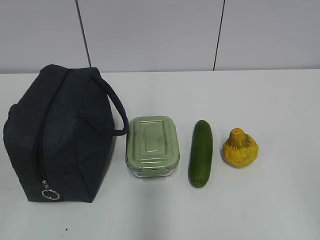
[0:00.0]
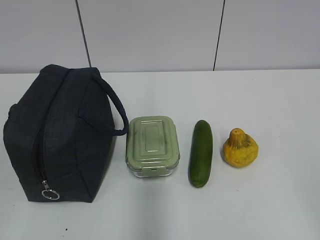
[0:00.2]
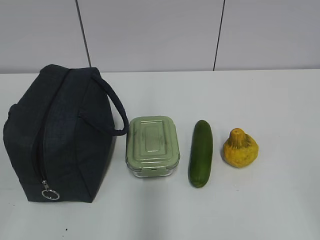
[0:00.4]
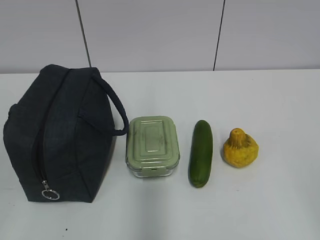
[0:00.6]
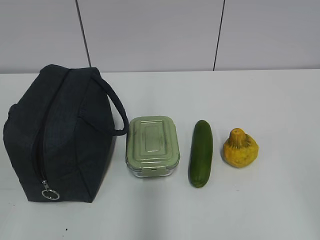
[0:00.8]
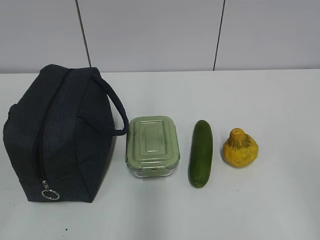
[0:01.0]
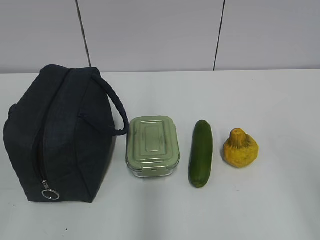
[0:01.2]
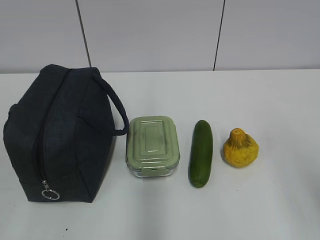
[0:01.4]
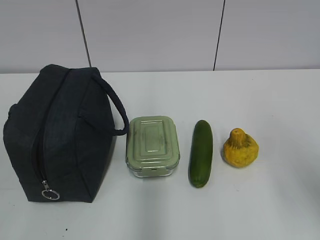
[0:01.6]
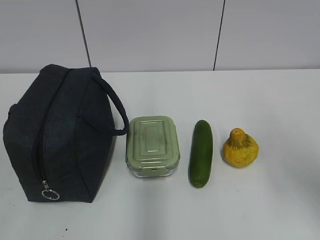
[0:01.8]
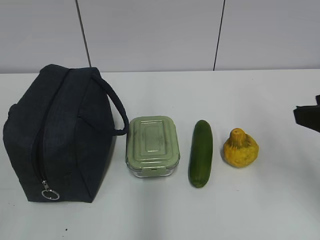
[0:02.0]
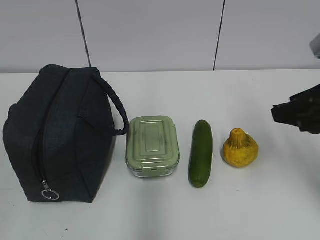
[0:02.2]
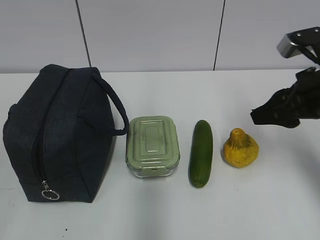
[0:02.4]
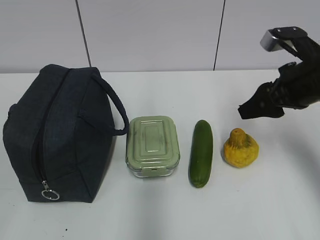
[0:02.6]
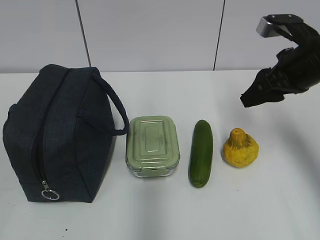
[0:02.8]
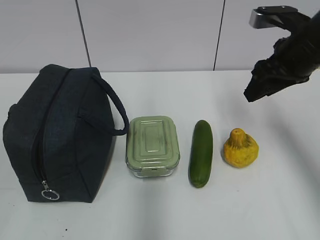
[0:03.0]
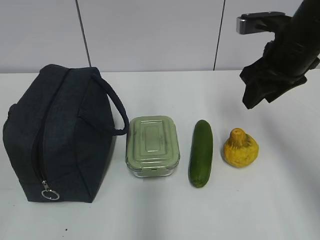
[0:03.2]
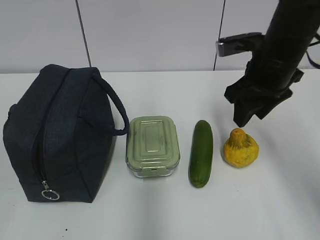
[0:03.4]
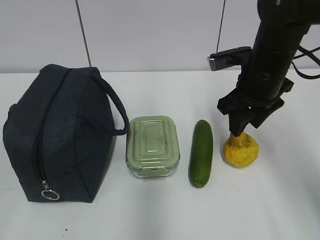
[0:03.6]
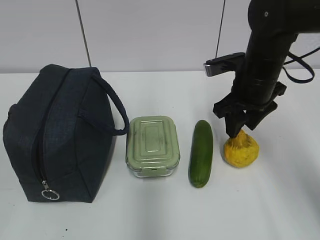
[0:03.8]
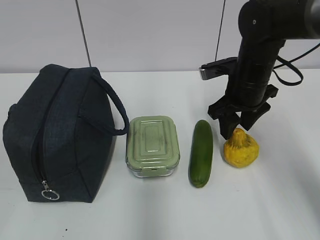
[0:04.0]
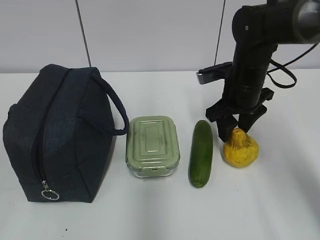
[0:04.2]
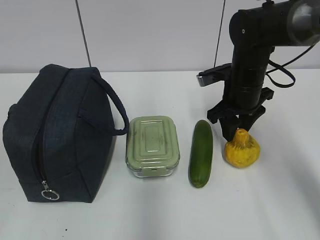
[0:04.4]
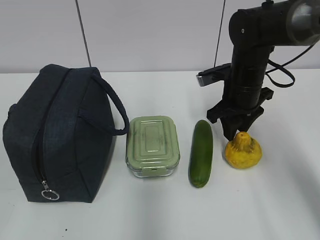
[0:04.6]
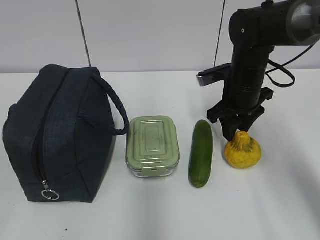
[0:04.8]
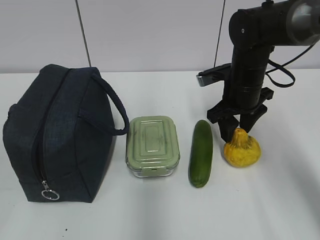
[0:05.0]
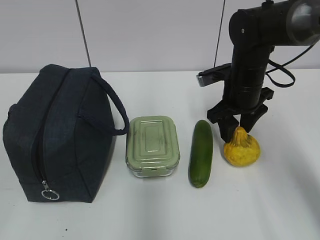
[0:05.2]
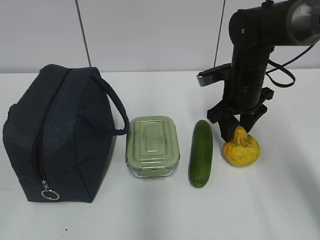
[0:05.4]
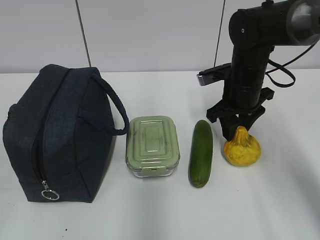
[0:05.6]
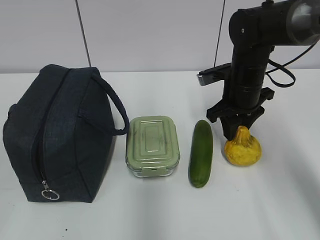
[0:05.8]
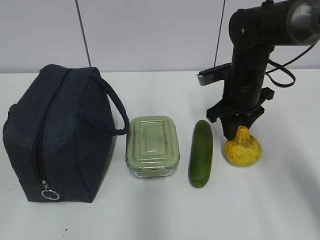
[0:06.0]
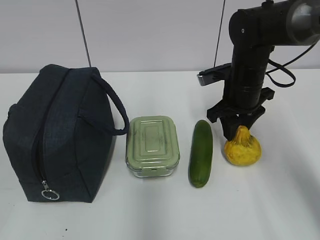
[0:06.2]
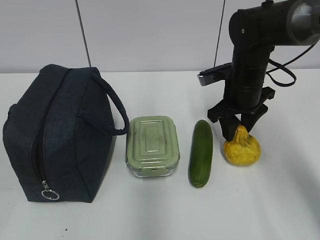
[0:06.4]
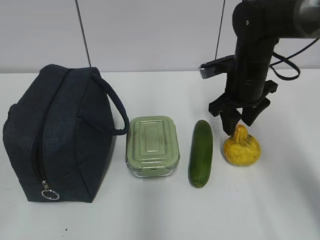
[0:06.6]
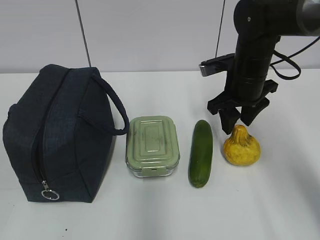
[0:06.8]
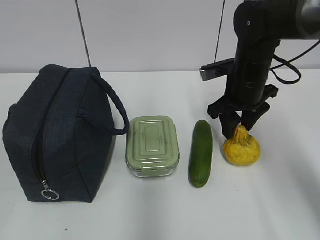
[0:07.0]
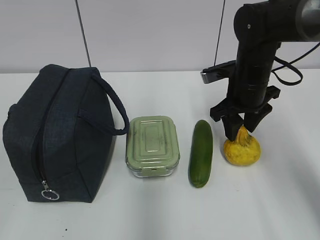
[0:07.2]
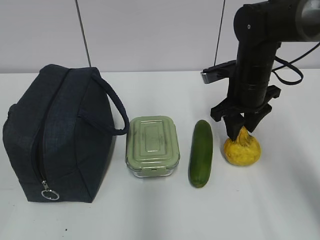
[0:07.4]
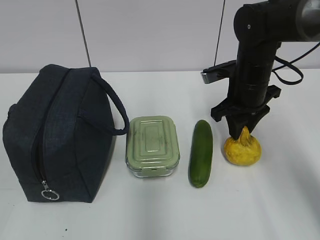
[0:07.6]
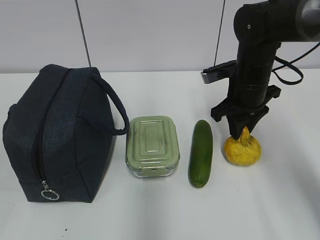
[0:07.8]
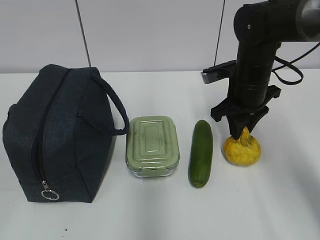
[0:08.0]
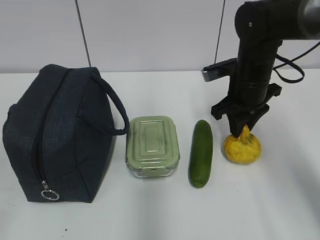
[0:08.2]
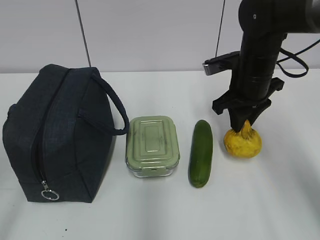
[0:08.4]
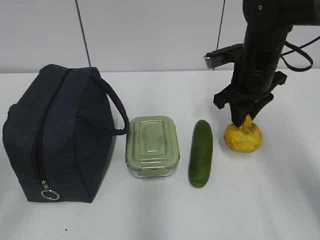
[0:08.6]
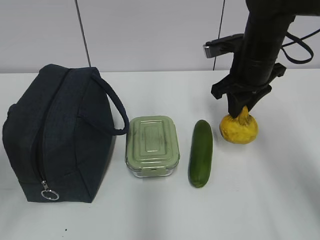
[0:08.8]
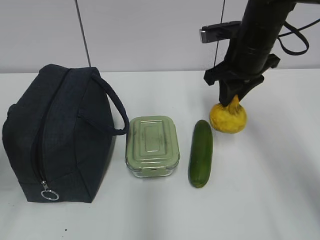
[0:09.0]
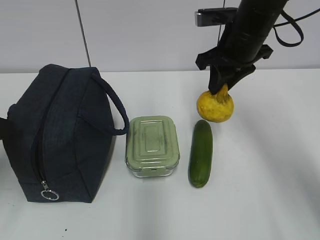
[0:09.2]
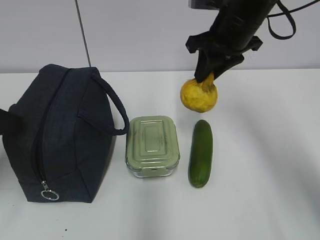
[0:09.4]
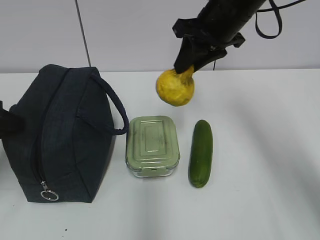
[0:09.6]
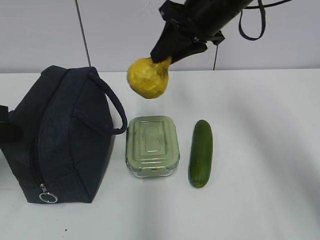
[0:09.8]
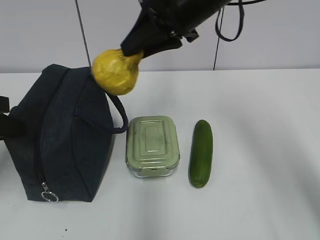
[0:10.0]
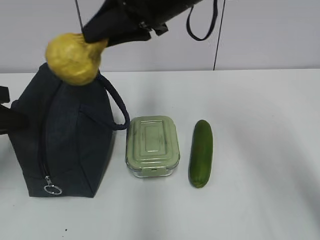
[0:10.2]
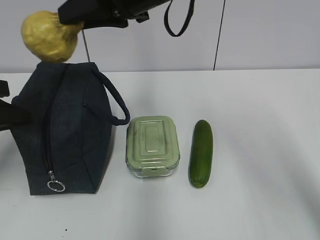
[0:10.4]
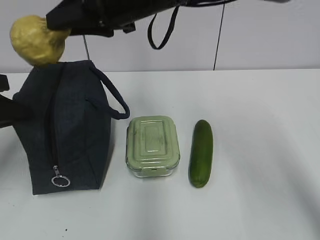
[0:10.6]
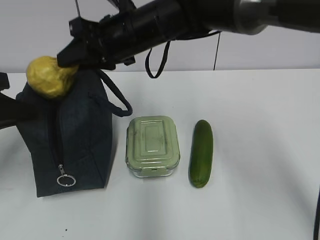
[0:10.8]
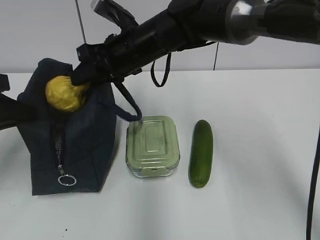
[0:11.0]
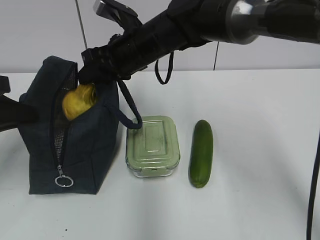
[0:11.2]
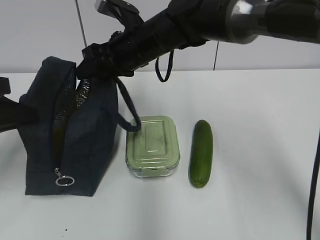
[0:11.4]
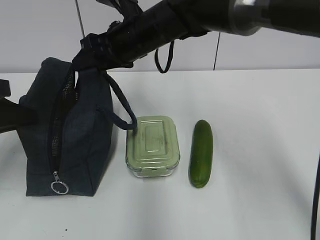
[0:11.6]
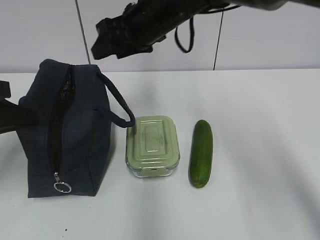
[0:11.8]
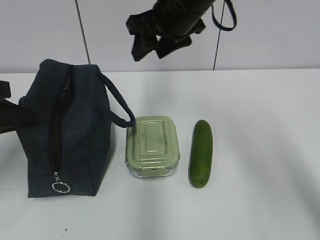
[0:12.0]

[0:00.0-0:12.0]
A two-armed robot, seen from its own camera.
Step, 0.0 to 7.8 s: Grab the pear with your right hand.
Step, 8.0 to 10.6 s: Grab the lunch bag with your left hand.
Step, 10.8 to 11.4 s: Place it into the bag with your right hand.
1.6 to 3.0 s: The right gripper is displaced forward by approximately 25 cm.
3.0 to 4.4 s: The right gripper shifts about 15 cm downward, to the left and forward.
4.4 to 6.0 s: Both grippers stay put.
6.0 to 7.6 s: The grippers make only small movements.
7.6 to 9.0 s: The left gripper travels forward by roughly 15 cm. The right gripper goes approximately 5 cm upward.
9.0 to 10.4 s: The left gripper shifts some 5 cm forward, and closes its fingers. Meanwhile the right gripper moves to the left and upward, roughly 20 cm.
10.4 to 12.0 s: The right gripper heads to the right, covering roughly 5 cm, moves roughly 10 cm downward and comes back, and opens.

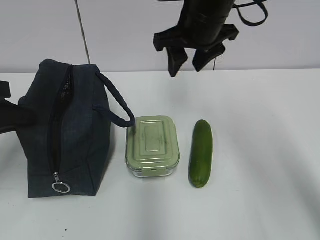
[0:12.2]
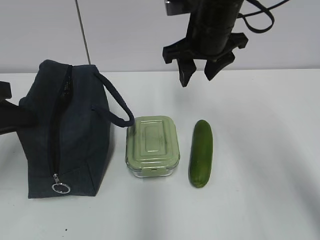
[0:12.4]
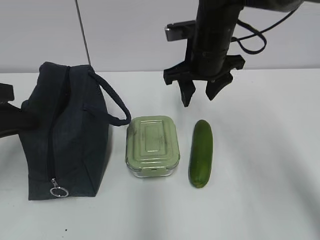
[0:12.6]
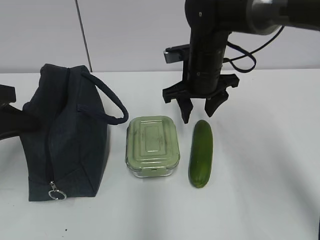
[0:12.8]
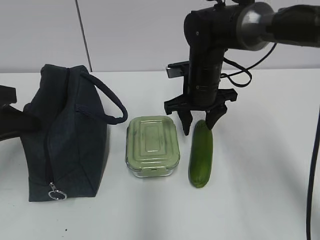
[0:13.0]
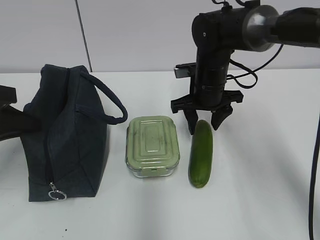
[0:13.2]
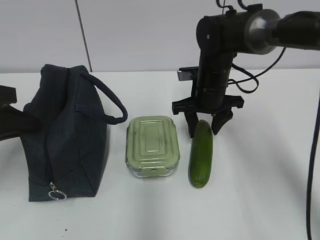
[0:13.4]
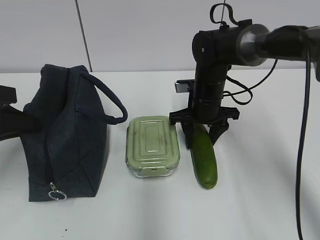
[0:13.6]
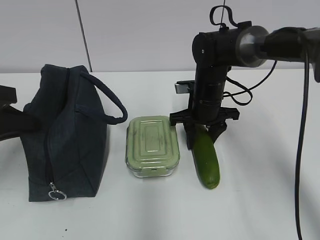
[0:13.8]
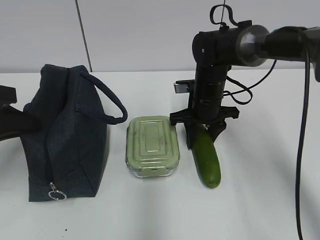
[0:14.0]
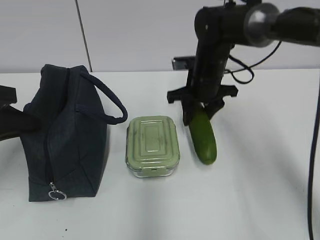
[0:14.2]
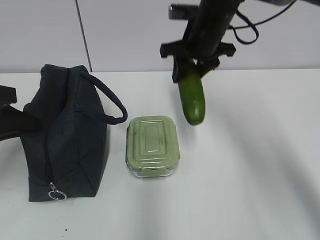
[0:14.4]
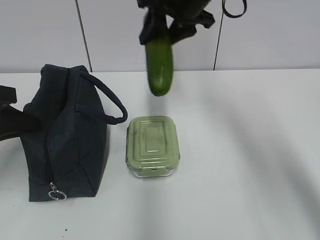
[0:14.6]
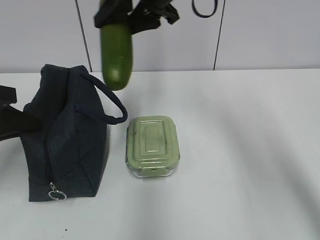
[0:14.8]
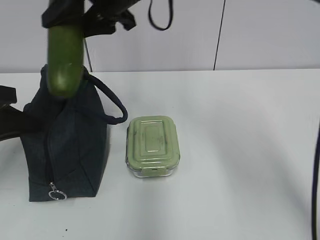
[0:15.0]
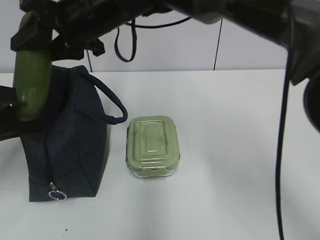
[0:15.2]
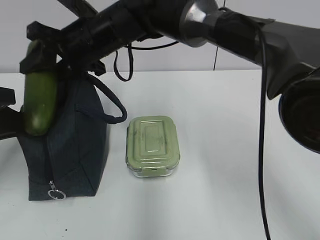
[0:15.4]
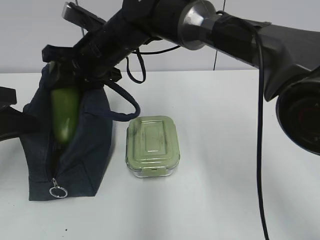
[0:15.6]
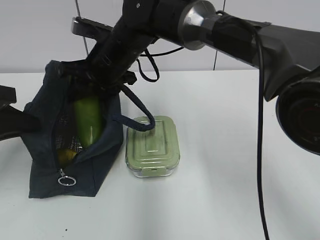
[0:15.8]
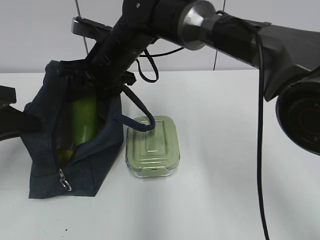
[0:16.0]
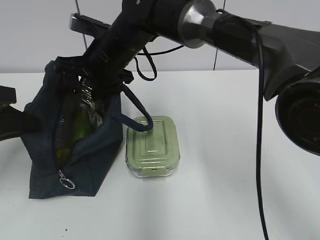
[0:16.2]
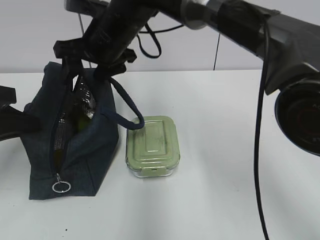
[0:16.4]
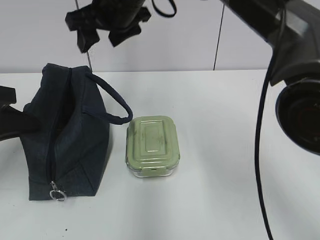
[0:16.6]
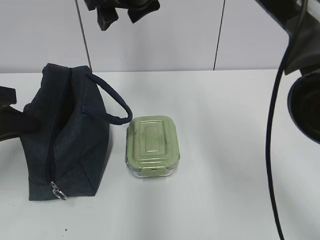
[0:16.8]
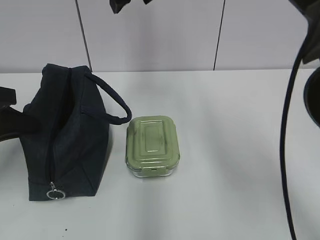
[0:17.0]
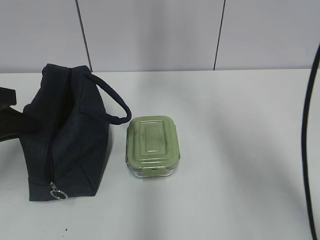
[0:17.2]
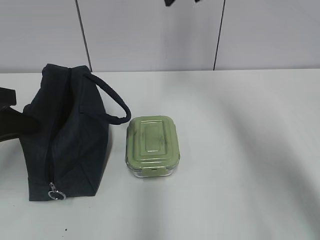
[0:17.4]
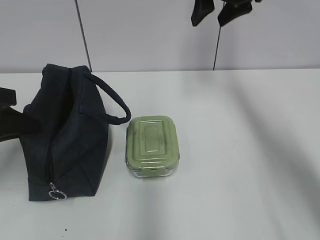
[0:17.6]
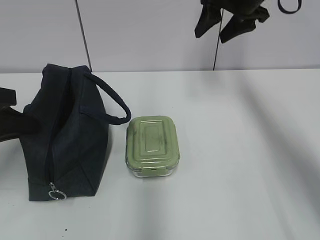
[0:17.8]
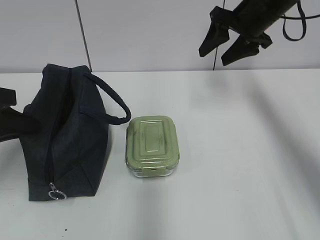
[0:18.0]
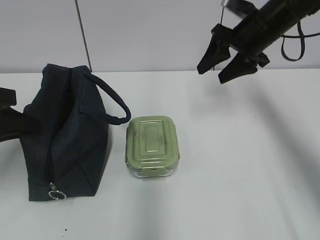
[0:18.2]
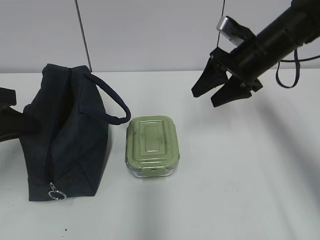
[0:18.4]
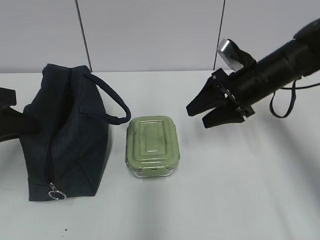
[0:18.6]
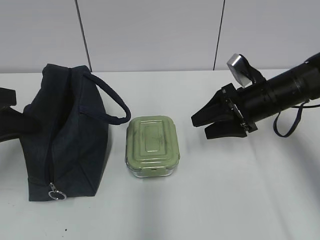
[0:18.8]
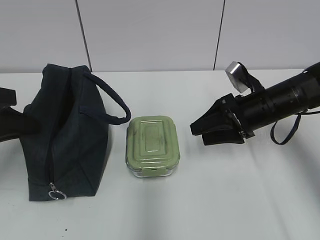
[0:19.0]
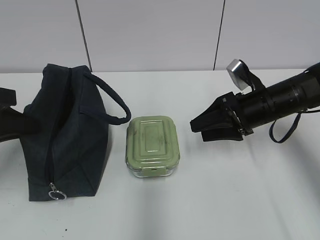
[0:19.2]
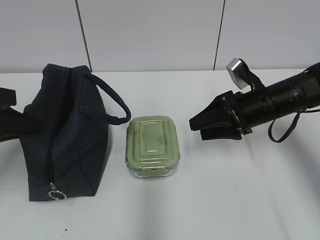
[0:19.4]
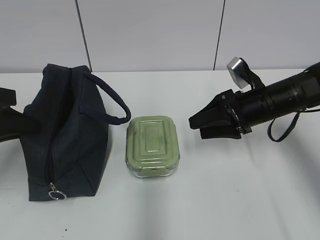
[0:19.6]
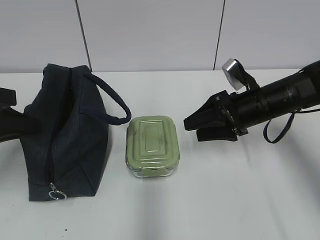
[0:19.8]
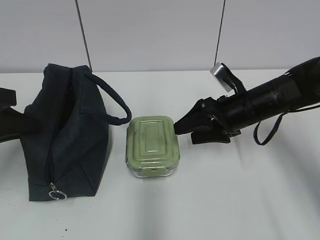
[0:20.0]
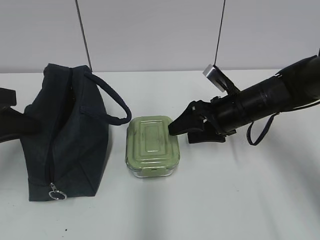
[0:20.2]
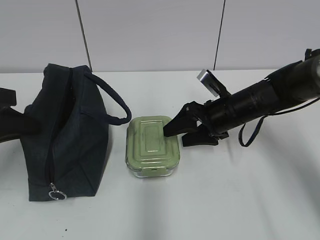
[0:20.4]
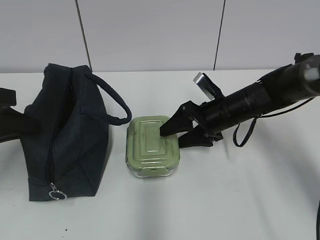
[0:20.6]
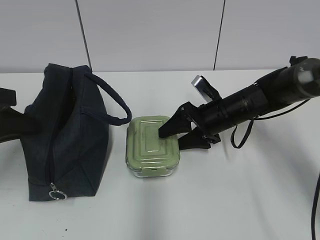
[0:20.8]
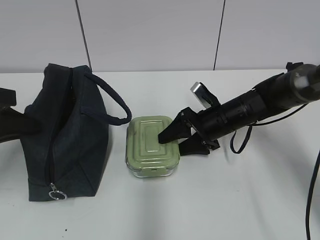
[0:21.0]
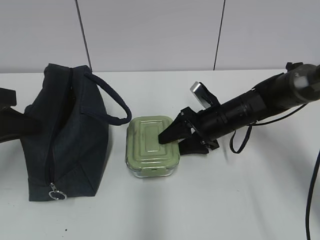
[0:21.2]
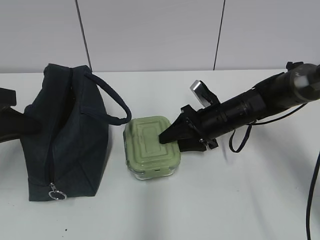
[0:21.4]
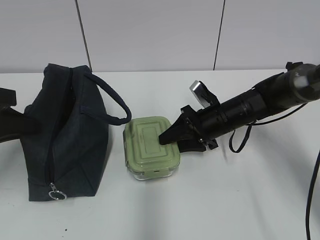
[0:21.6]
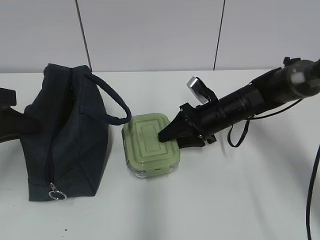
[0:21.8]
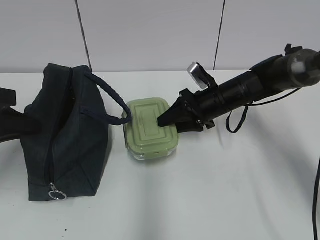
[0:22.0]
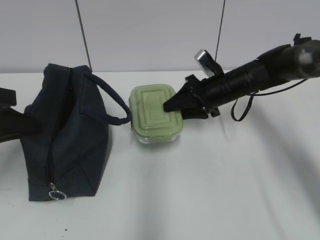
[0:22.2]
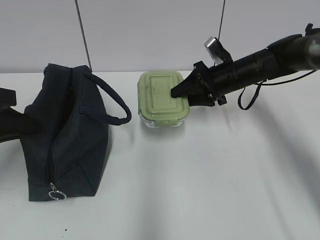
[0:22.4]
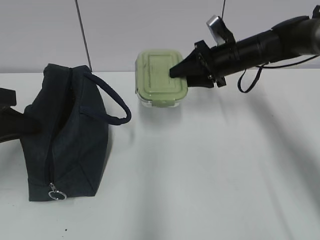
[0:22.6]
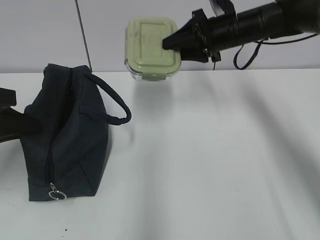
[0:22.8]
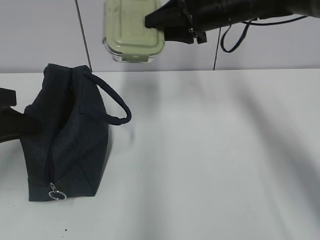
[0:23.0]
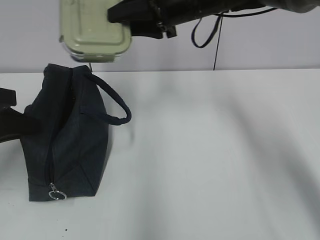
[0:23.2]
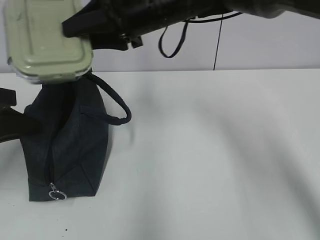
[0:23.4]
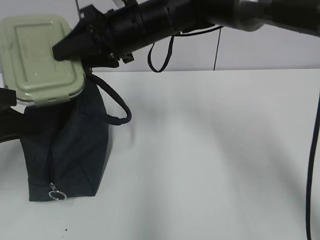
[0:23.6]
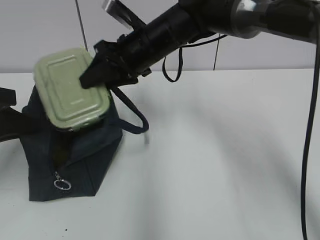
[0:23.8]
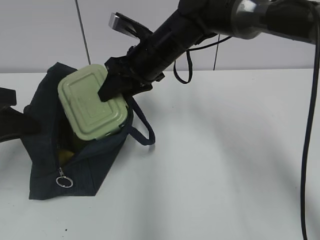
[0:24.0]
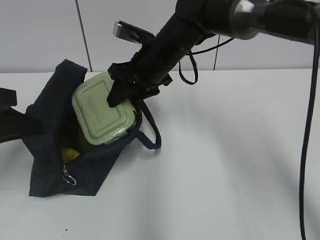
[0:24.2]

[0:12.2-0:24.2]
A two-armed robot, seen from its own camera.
Step, 12.2 to 13.8 s: Grab the cucumber with your right hand.
Step, 14.0 to 16.2 s: Place it into the bag with your right hand.
Step, 16.4 to 21.6 s: Grab the lunch box with your right hand.
12.2 to 13.8 s: The right gripper moves downward, roughly 15 cm.
13.8 to 15.2 s: The right gripper heads to the left and upward, covering roughly 25 cm.
15.2 to 16.6 s: The right gripper reaches some 5 cm downward, then returns.
16.6 to 18.2 s: The right gripper travels to the right by approximately 20 cm.
18.2 to 19.8 s: The right gripper moves downward and backward, roughly 10 cm.
19.8 to 21.2 s: The right gripper travels downward by some 5 cm.
21.2 to 22.6 s: The right gripper is displaced upward and forward by roughly 15 cm.
22.6 to 24.2 s: The right gripper goes some 15 cm to the left.
